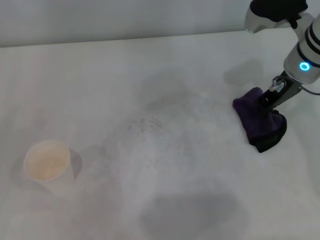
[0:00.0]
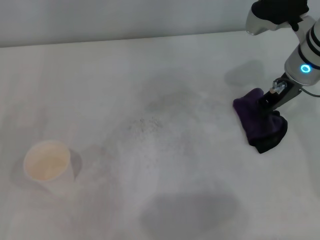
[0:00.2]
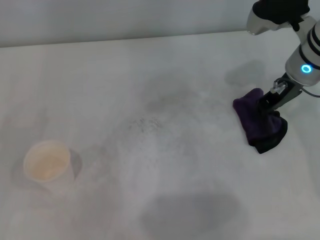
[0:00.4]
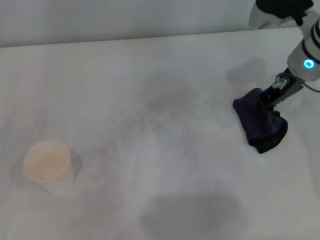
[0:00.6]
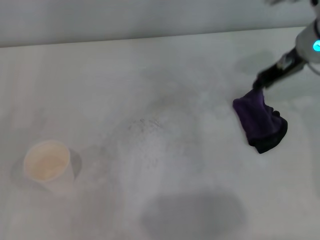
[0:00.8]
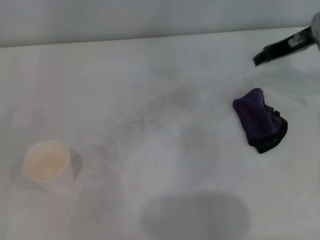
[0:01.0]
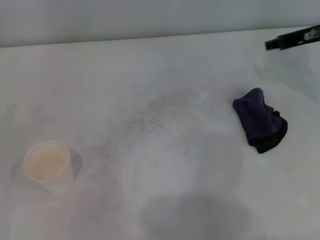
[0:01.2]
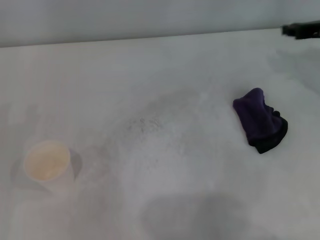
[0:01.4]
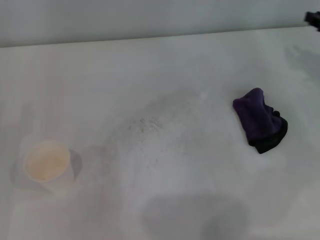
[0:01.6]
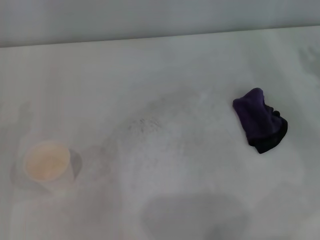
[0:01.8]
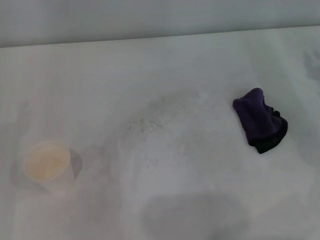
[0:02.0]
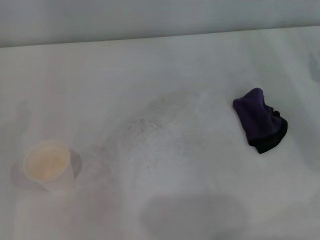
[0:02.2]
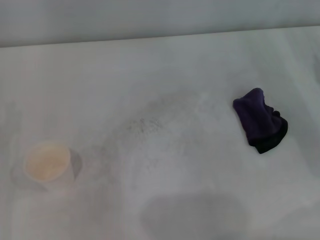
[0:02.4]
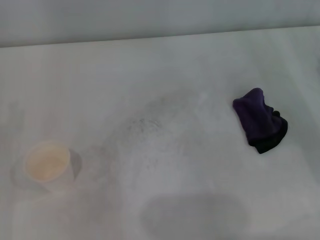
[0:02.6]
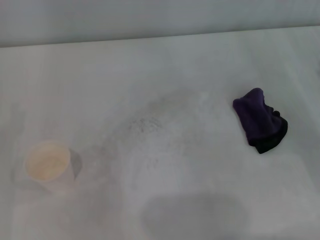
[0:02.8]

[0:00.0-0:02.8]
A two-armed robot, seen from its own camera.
Step, 0:00.0 to 0:00.4: Place the rag on the table with the right gripper.
0:00.0 to 0:01.4: The right gripper shifts about 10 cm to the right.
0:01.4 to 0:02.8: The right gripper travels backward and downward by approximately 15 cm.

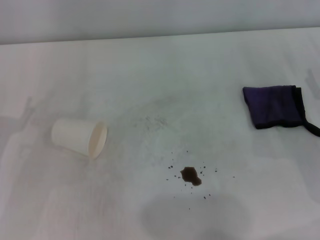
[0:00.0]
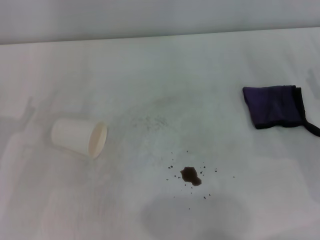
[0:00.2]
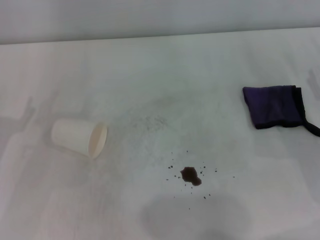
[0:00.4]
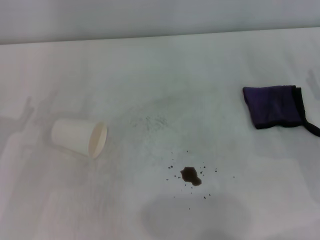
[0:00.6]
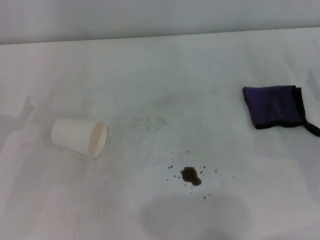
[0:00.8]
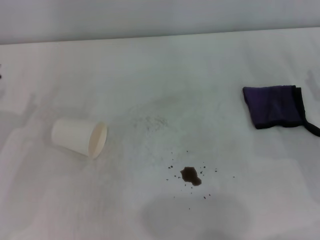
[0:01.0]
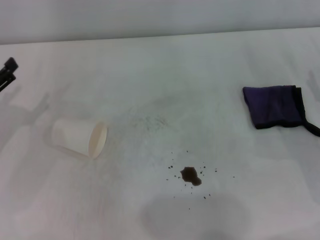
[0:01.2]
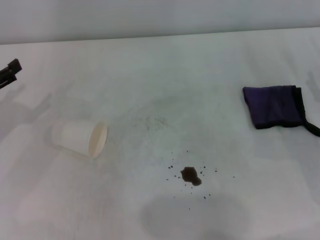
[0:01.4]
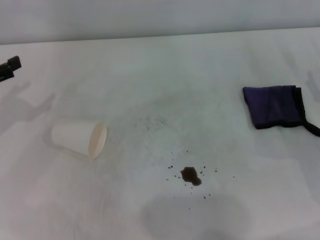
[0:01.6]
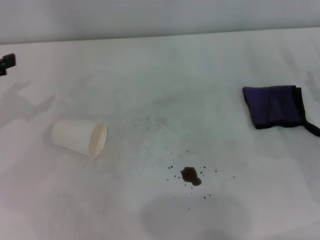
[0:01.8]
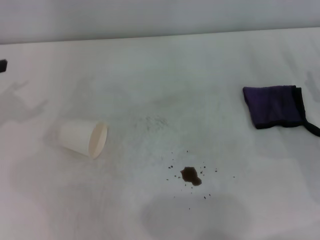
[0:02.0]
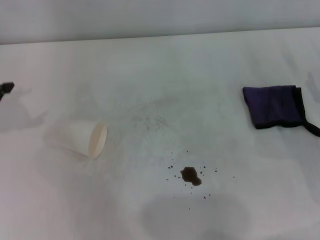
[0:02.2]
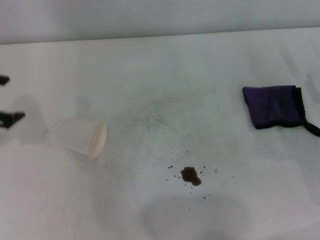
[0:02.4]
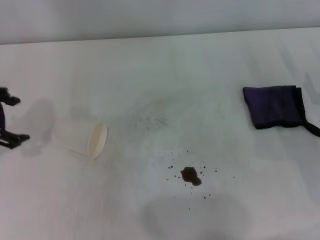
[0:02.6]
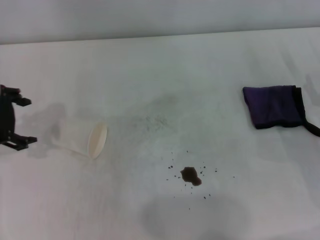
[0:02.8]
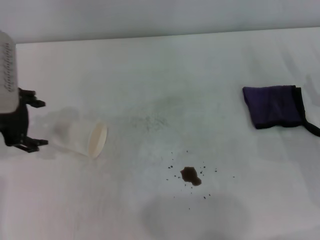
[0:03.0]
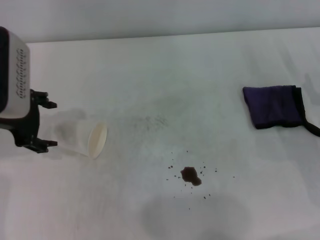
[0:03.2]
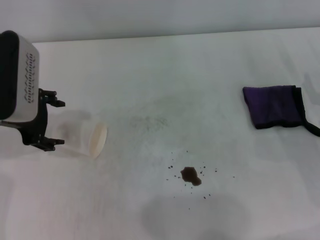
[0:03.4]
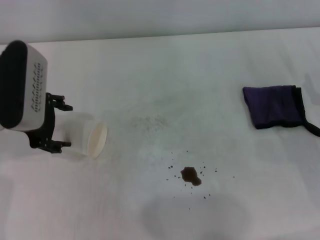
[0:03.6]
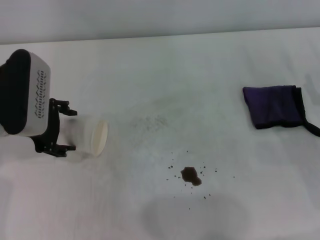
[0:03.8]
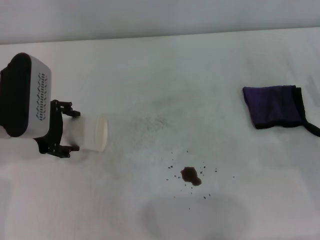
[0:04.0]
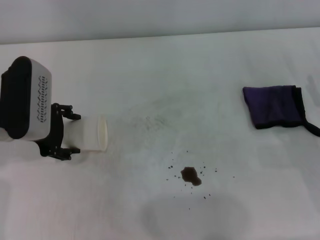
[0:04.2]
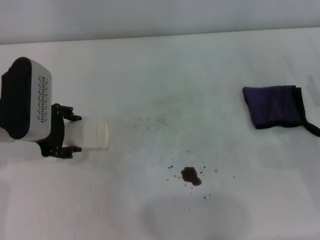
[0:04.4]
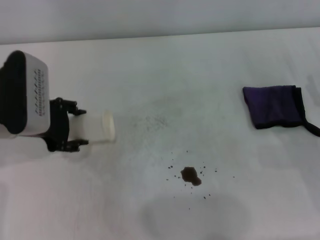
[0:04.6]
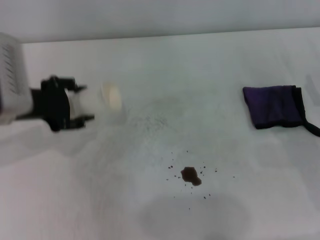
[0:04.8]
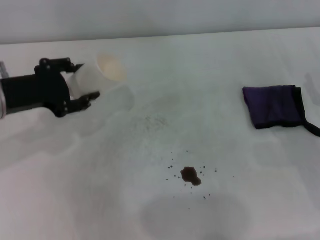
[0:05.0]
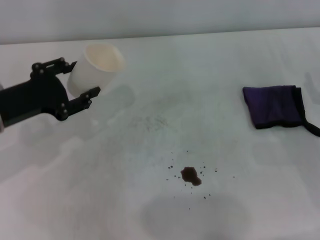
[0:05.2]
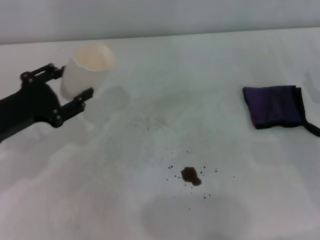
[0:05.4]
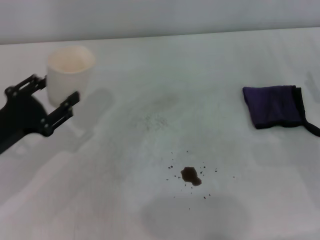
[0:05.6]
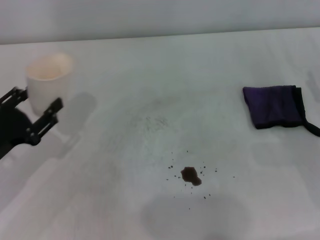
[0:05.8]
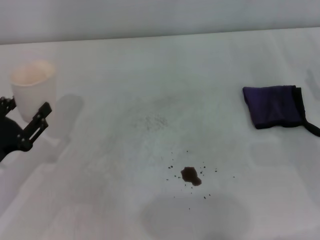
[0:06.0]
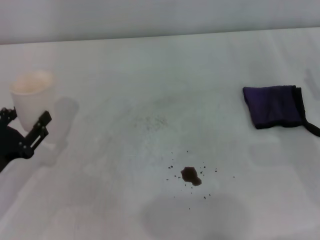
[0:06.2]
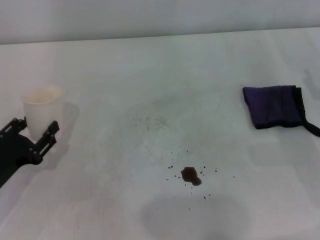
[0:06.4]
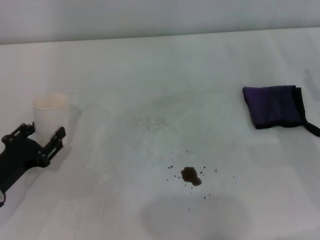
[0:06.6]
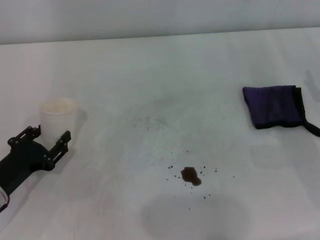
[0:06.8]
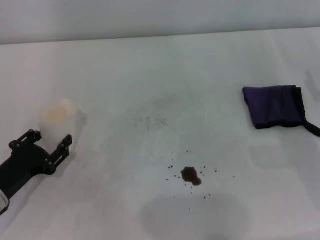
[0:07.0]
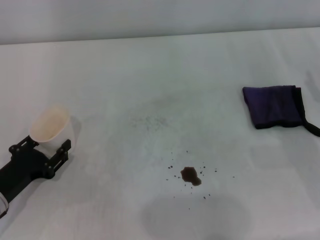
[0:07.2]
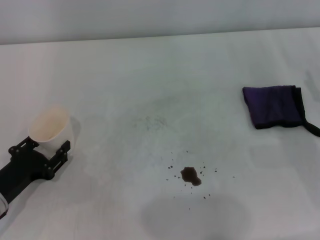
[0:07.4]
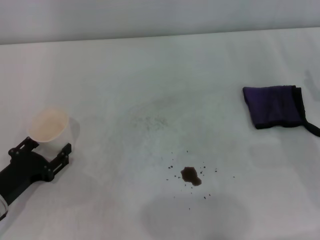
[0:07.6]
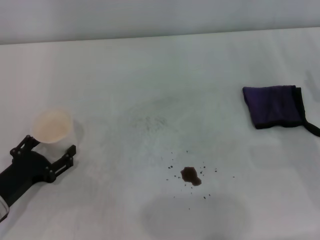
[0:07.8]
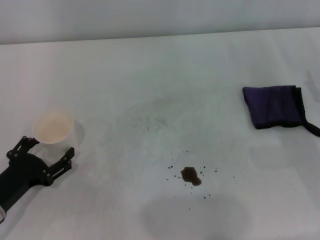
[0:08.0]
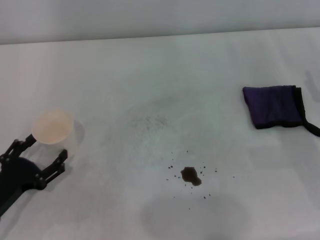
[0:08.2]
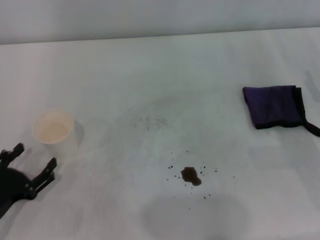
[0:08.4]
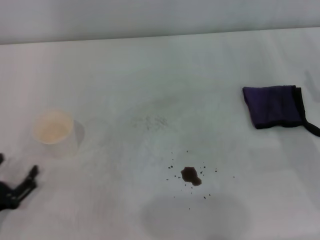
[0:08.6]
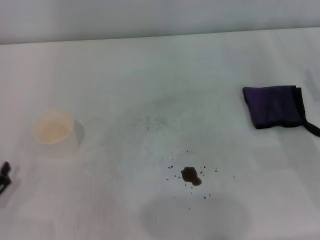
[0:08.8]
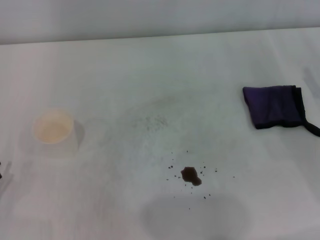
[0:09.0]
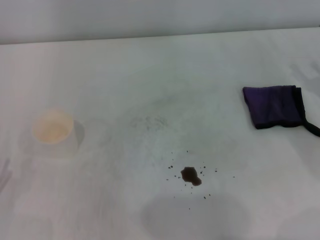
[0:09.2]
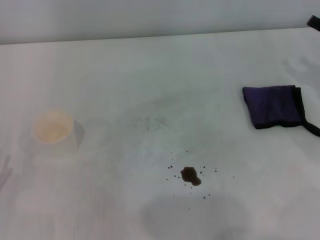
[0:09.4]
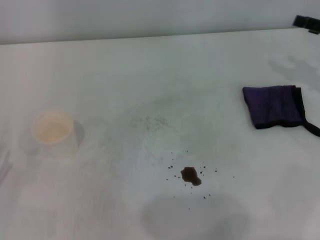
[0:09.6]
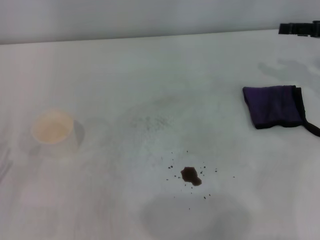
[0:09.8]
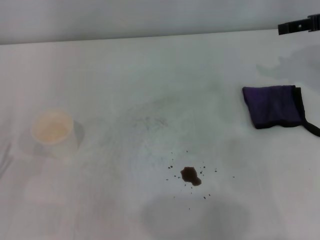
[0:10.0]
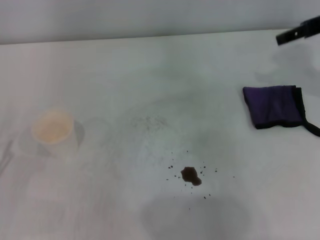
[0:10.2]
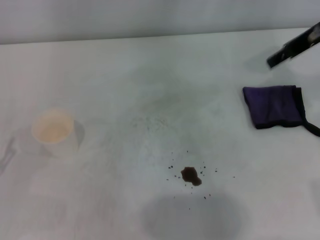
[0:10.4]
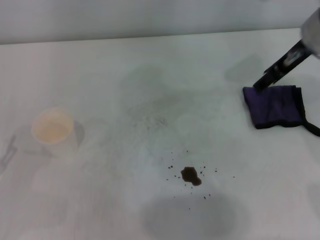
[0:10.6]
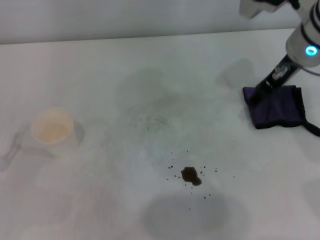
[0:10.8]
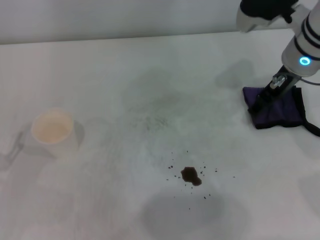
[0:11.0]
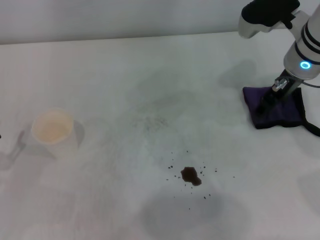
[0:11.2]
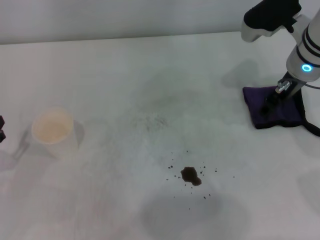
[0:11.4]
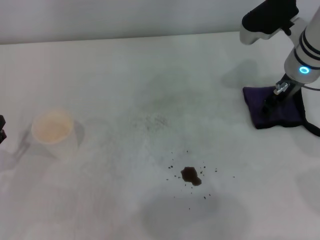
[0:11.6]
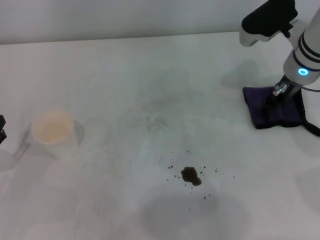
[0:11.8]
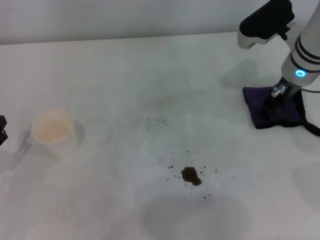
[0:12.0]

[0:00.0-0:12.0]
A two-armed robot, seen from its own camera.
Step, 0:00.0 to 0:04.2: Grasp the paper cup with the left gripper.
Step, 0:04.4 to 0:07.6: Stand the paper cup upright with the left gripper.
0:01.6 to 0:03.0: The left gripper goes about 10 cm to the right.
0:03.0 to 0:04.4: The left gripper travels downward by about 5 cm.
0:04.4 to 0:06.0: The left gripper heads backward, downward and to the left, covering approximately 15 cm, and closes.
0:06.0 to 0:07.6: The left gripper travels downward by approximately 5 cm.
0:07.6 to 0:09.0: The left gripper moves backward and to the left, some 10 cm, and opens up.
0:09.0 to 0:10.4: The right gripper heads upward, forward and to the left, covering roughly 25 cm.
0:10.4 to 0:12.0: The right gripper moves downward, roughly 10 cm, and closes up.

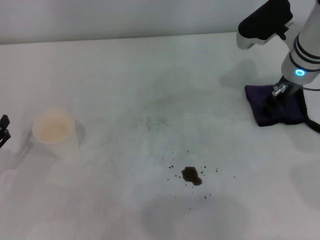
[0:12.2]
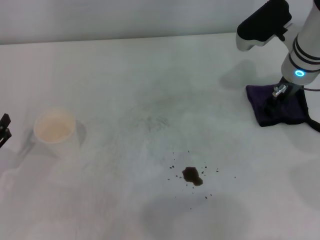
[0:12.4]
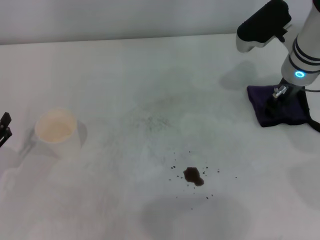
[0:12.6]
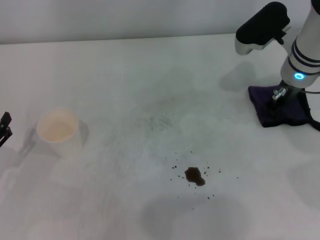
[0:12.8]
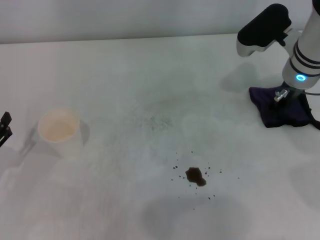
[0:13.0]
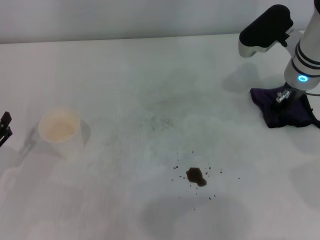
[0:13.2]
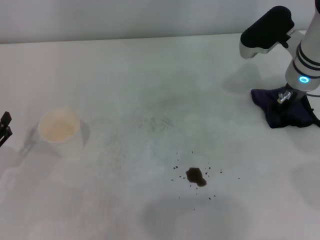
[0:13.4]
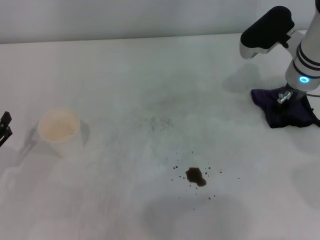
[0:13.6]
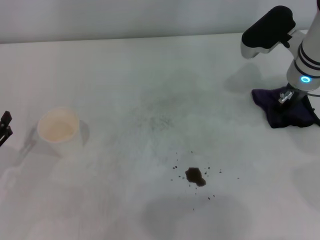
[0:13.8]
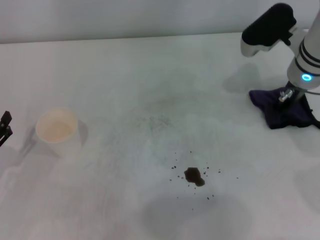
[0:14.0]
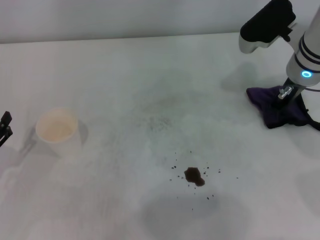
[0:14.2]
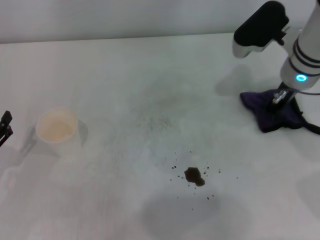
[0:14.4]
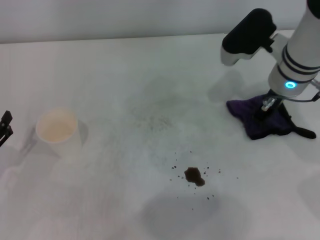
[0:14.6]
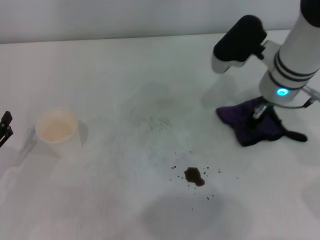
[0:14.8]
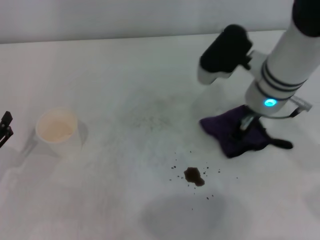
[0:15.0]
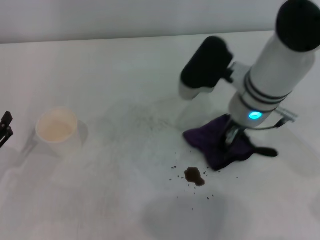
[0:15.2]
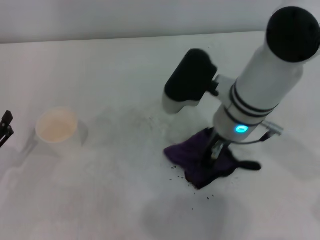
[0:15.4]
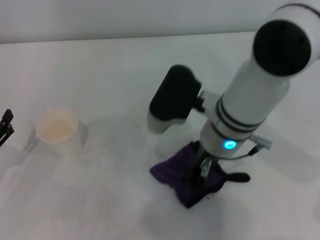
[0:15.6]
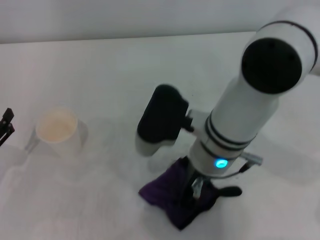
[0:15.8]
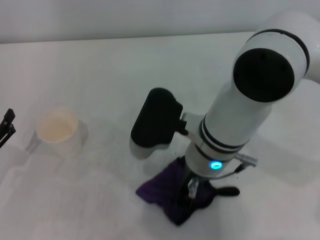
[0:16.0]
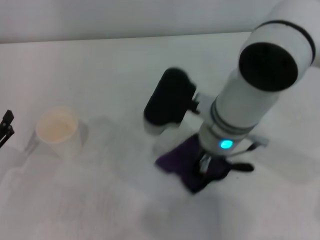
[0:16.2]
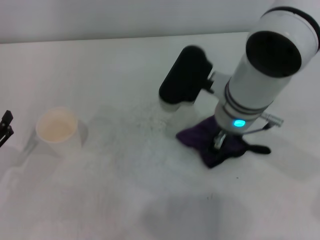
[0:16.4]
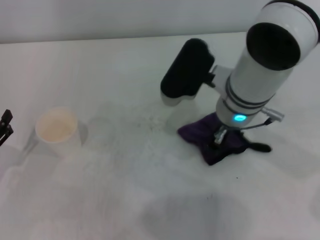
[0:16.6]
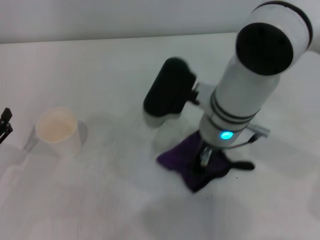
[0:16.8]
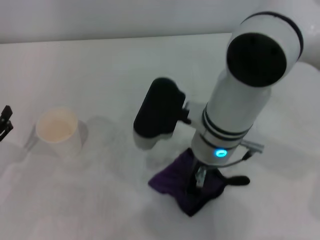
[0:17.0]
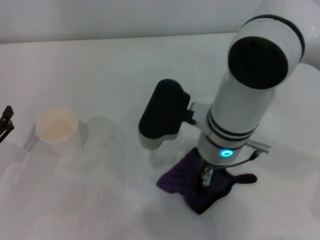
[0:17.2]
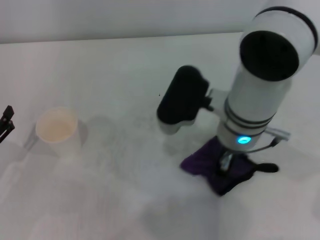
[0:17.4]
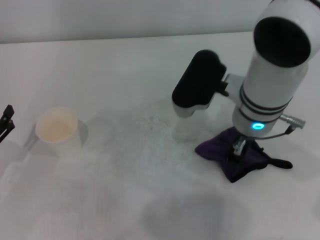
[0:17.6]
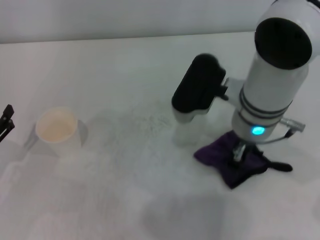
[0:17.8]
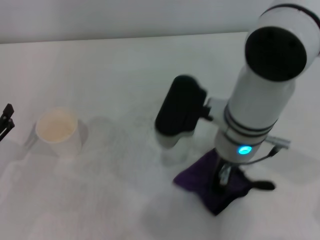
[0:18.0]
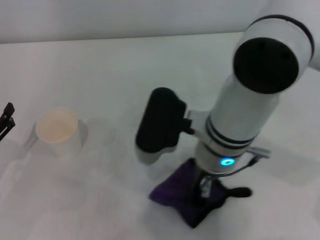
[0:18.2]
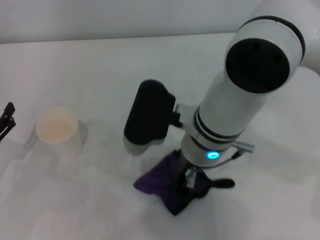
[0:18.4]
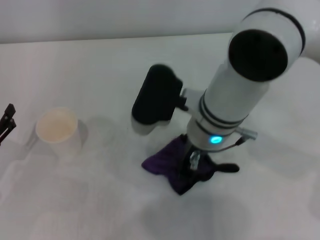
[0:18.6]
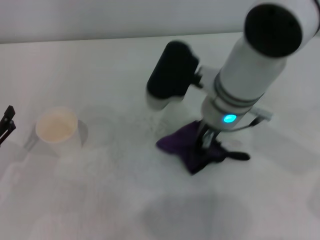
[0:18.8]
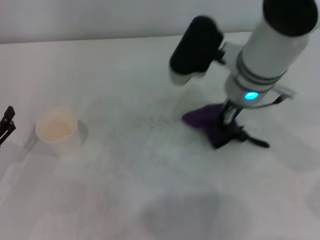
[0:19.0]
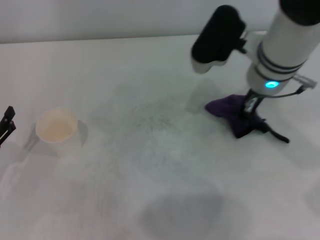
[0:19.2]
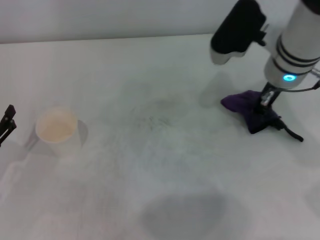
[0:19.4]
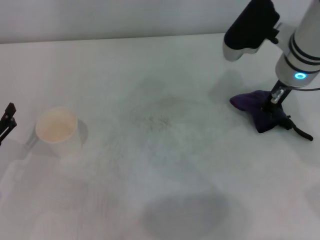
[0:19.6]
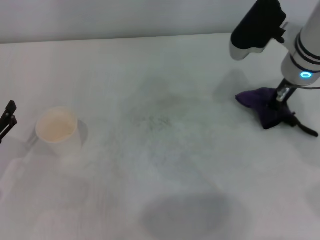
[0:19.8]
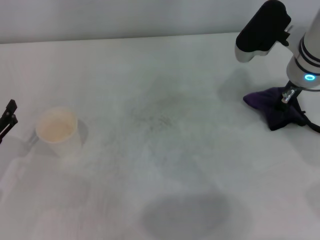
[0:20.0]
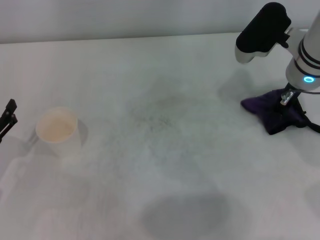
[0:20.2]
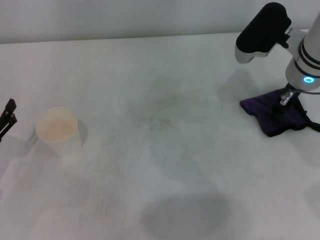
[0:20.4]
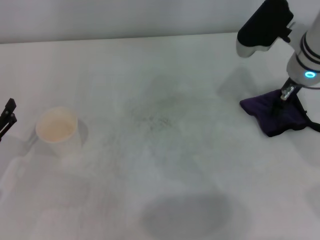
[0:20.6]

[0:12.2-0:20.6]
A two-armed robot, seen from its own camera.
Step, 0:14.0 to 0:19.4: Wipe the stains off the table with the right gripper.
Step, 0:19.8 to 0:20.2: Place the rag on the table with the right gripper.
0:12.2 to 0:13.6: The right gripper closes.
0:13.6 to 0:15.0: The right gripper moves to the left, some 5 cm.
0:15.0 to 0:16.4: The right gripper goes roughly 5 cm to the left.
0:16.4 to 0:17.8: The grippers move only a little.
0:17.8 to 0:19.2: The right gripper heads forward, covering approximately 5 cm.
0:19.2 to 0:20.6: The right gripper goes approximately 5 cm to the right.
